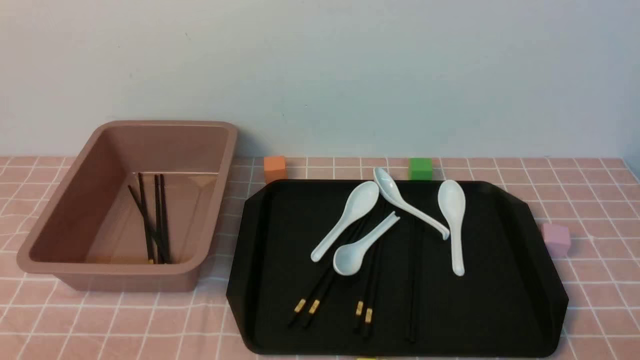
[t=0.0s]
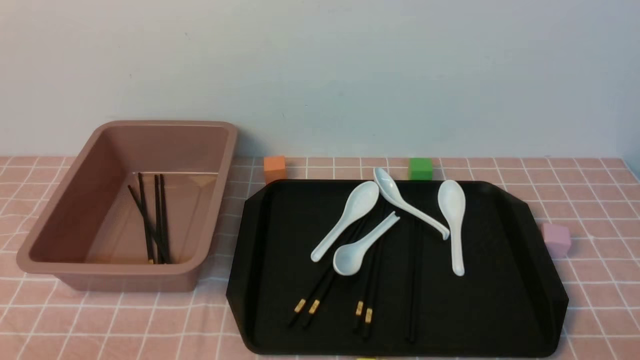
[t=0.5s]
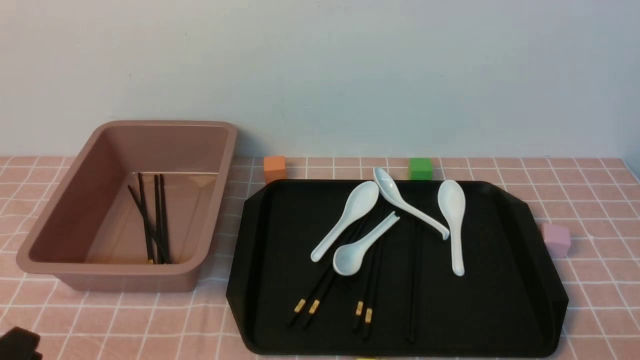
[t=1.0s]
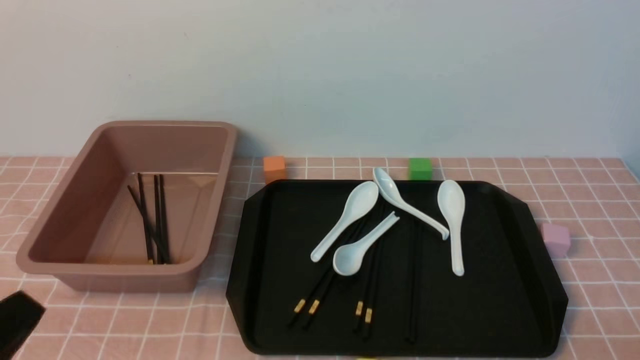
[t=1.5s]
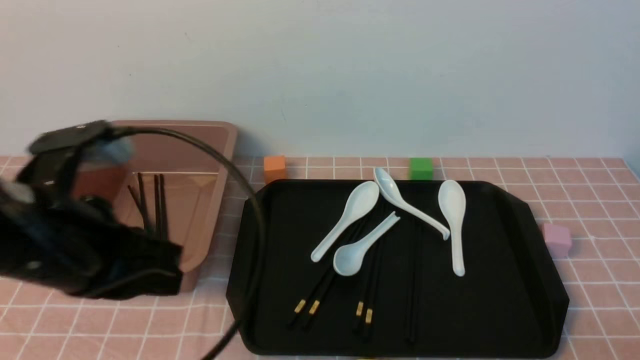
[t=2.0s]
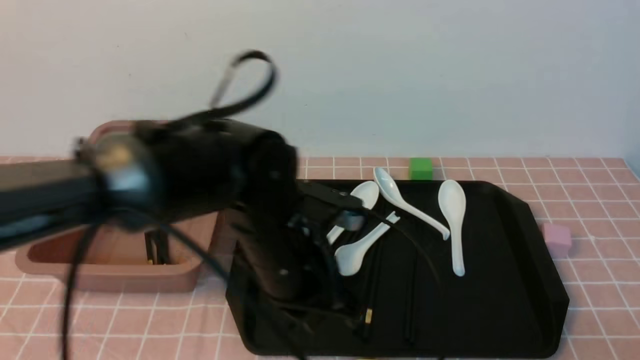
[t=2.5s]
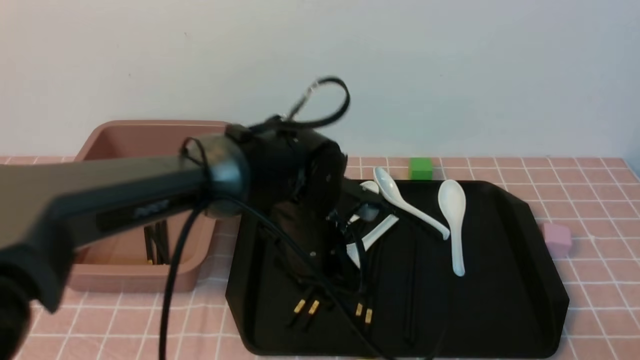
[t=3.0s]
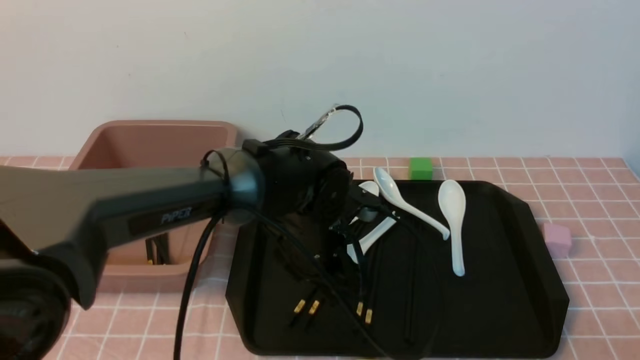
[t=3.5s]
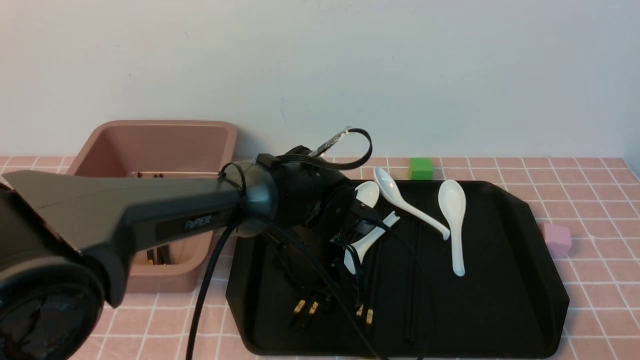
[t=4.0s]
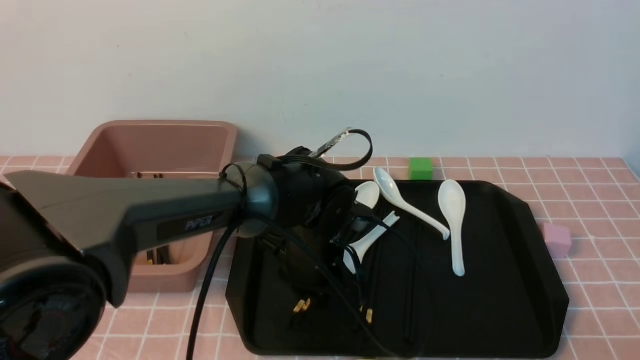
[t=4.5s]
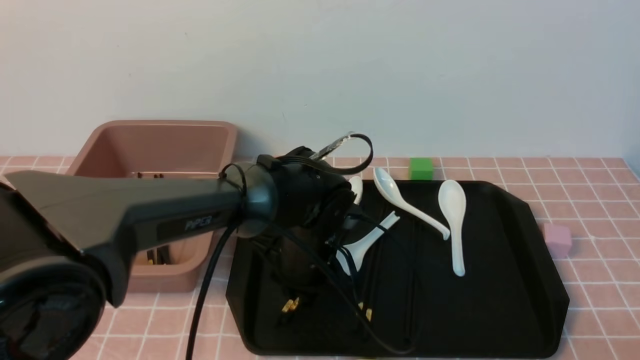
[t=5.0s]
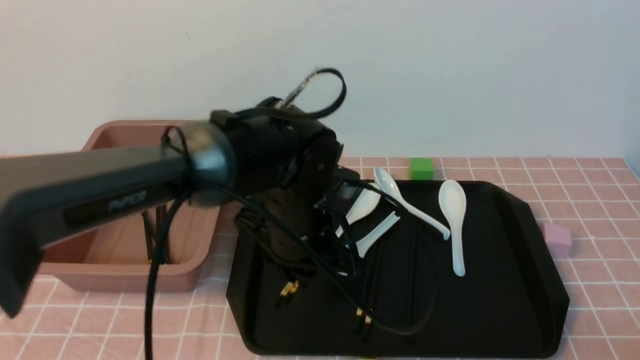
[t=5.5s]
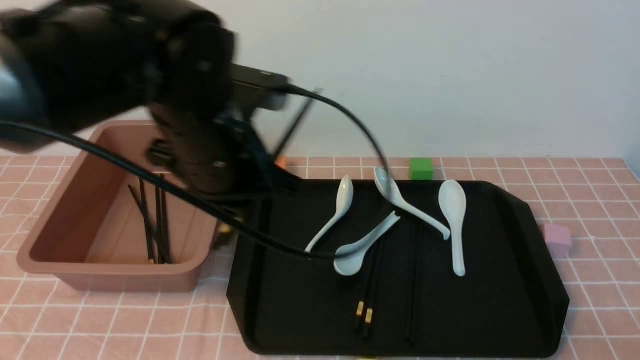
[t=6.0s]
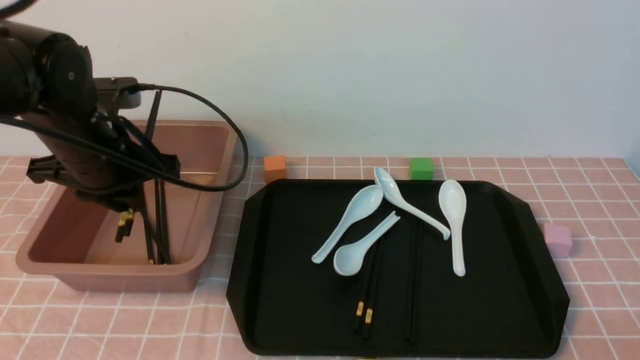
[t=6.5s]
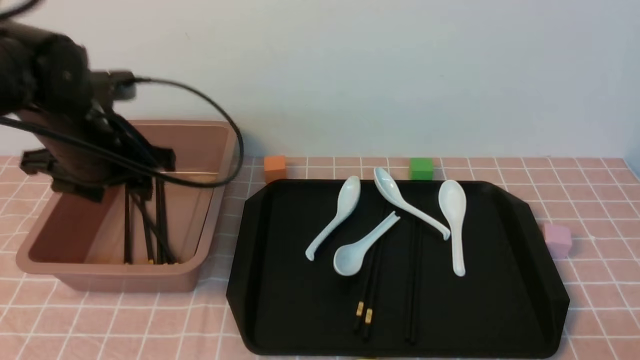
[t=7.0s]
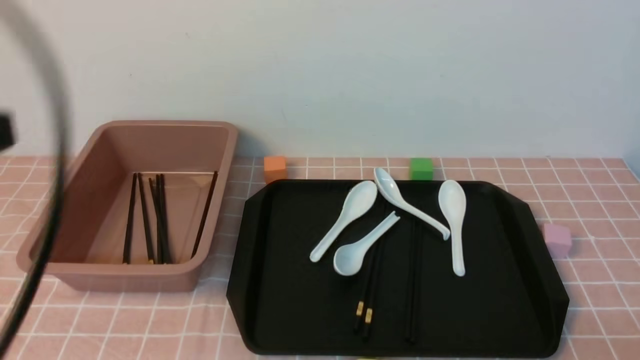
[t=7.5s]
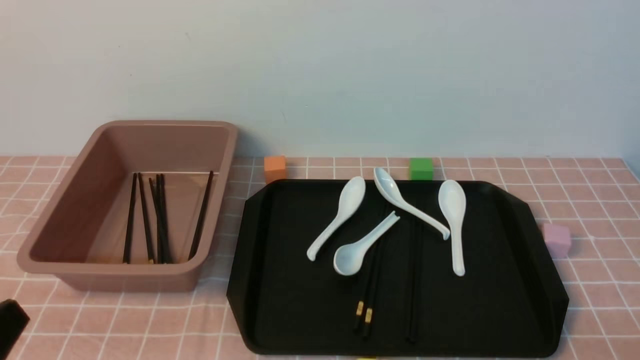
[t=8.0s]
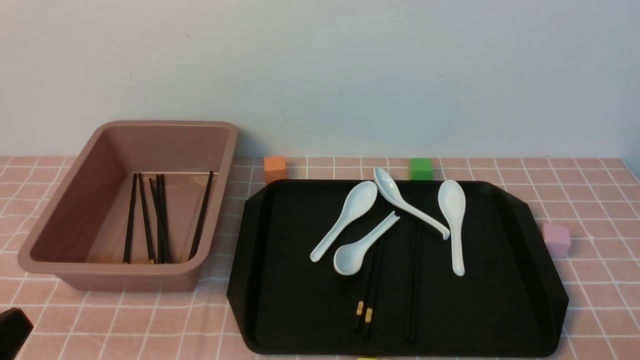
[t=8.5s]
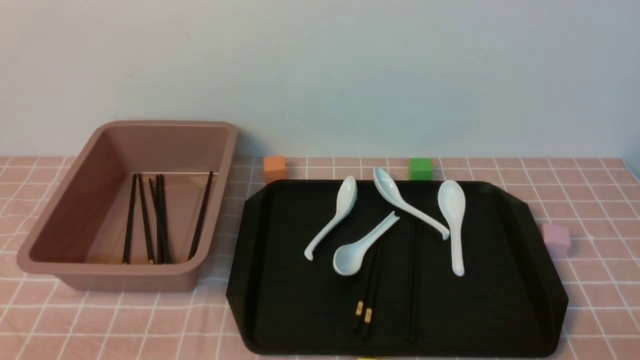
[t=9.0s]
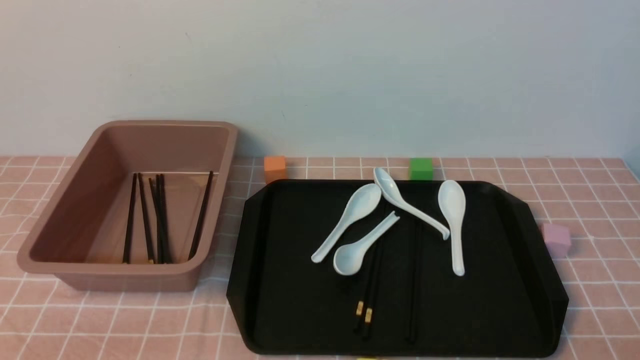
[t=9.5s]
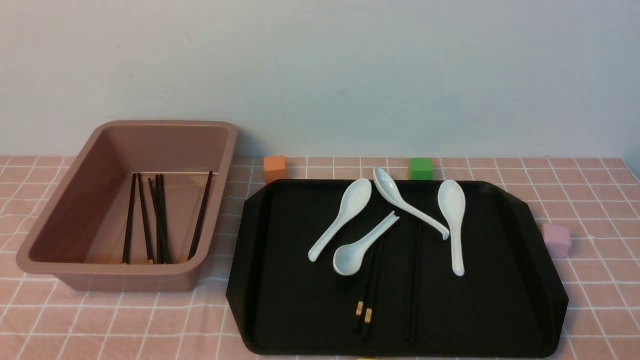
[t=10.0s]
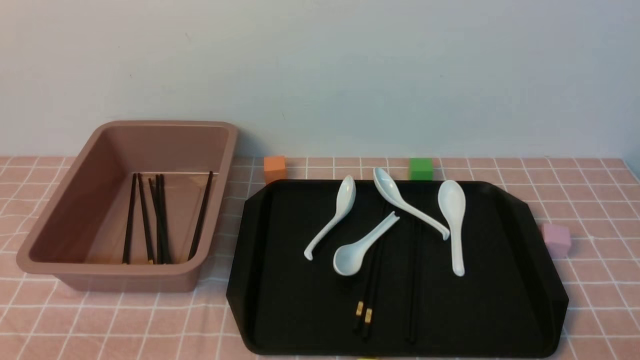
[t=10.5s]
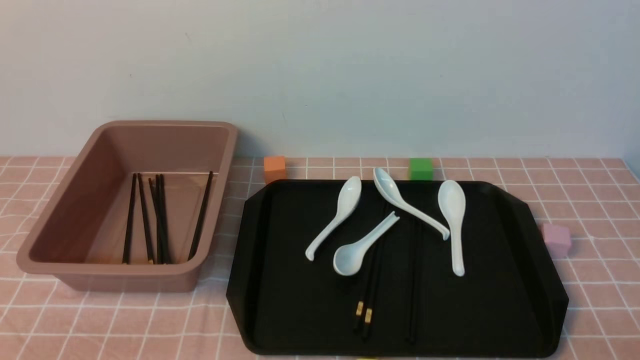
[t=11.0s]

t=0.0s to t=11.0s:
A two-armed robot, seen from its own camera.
Step, t=0.0s to t=5.5s: use the left arm to grab a pair of chopsticks.
Step, t=6.0s to t=7.0s: use the left arm to put the chopsticks into the lunch box.
t=0.0s to t=2.0s: The left gripper heads forward, upward and to the right, covering some 20 cm, and closes up.
t=2.0s to t=3.5s: The left gripper travels to the right, downward and forward by some 25 cm, and opens up.
t=3.5s to t=5.5s: The left gripper moves upward, approximately 5 cm, and closes up.
t=5.5s to t=7.5s: The left gripper heads to the left, backward and upward, covering roughly 35 cm, and opens, then closes once more.
t=7.5s to t=9.0s: The left gripper is displaced downward by about 20 cm.
t=9.0s to t=11.0s: Neither gripper changes place.
